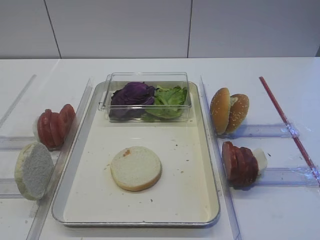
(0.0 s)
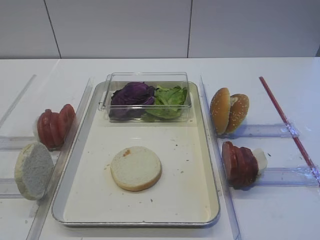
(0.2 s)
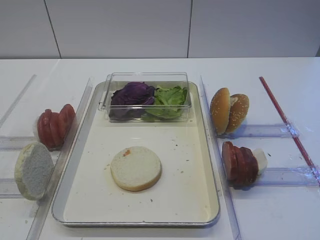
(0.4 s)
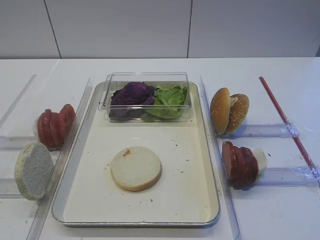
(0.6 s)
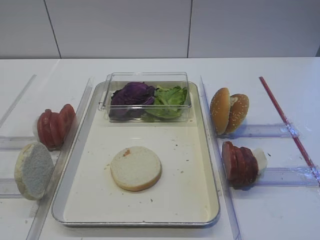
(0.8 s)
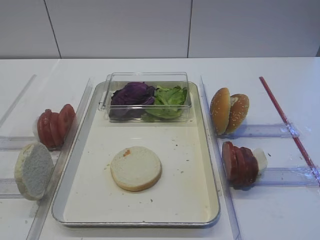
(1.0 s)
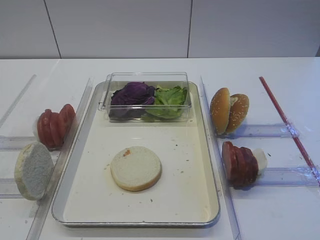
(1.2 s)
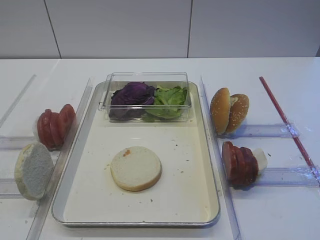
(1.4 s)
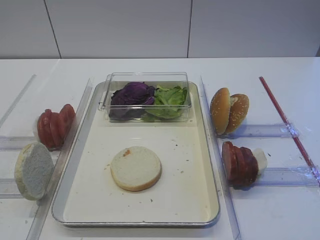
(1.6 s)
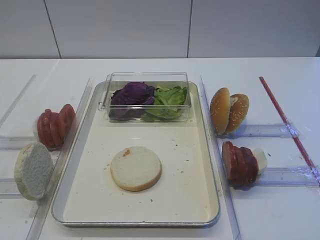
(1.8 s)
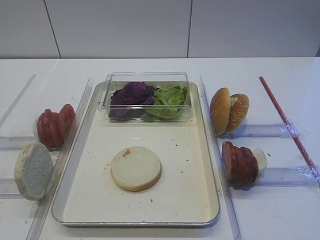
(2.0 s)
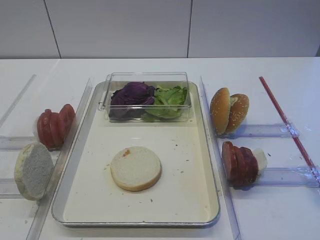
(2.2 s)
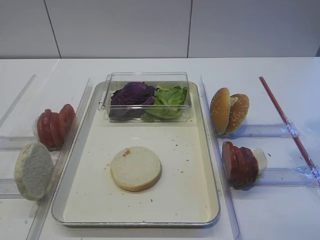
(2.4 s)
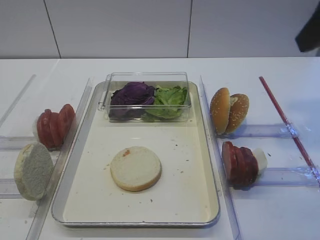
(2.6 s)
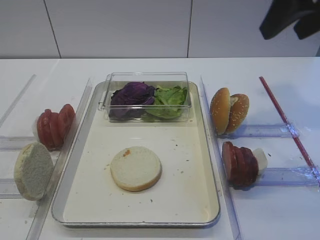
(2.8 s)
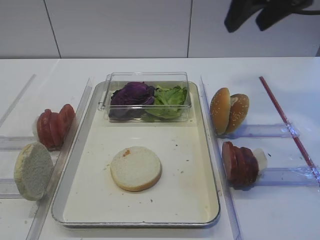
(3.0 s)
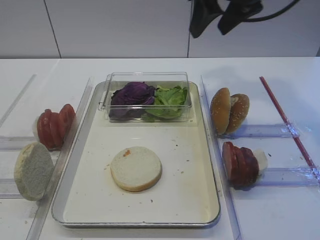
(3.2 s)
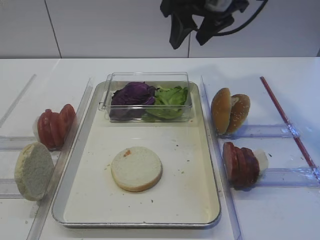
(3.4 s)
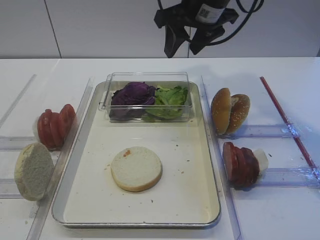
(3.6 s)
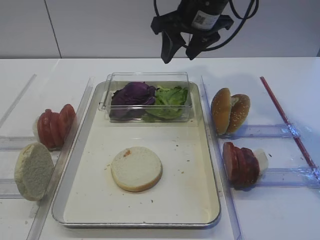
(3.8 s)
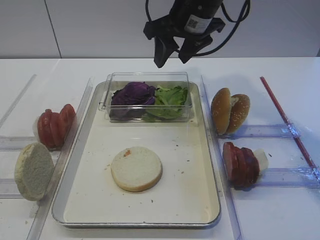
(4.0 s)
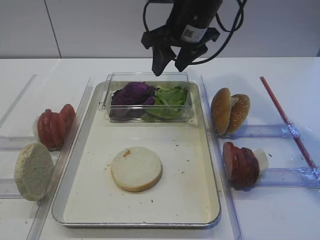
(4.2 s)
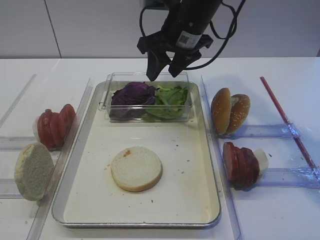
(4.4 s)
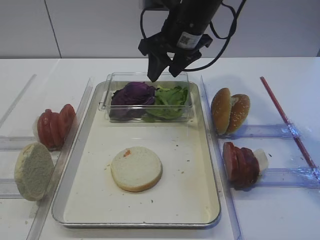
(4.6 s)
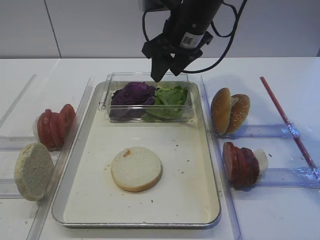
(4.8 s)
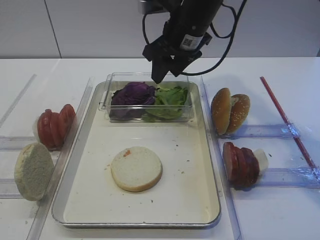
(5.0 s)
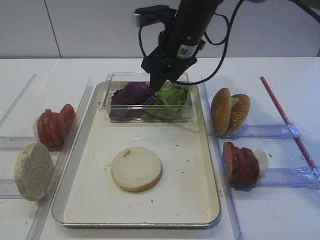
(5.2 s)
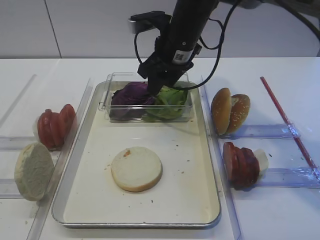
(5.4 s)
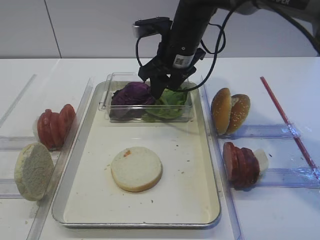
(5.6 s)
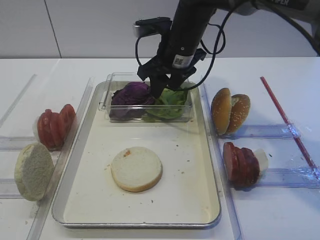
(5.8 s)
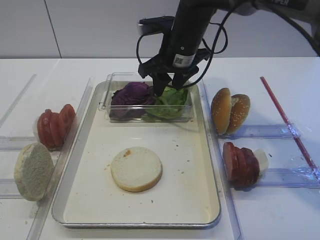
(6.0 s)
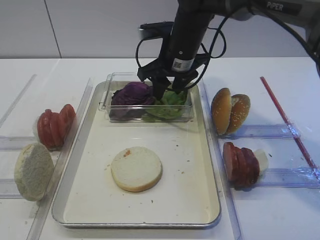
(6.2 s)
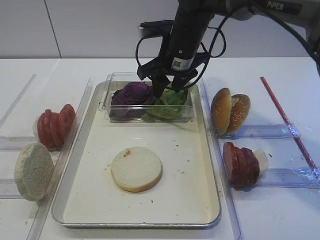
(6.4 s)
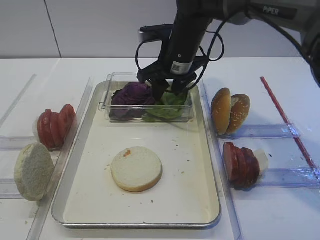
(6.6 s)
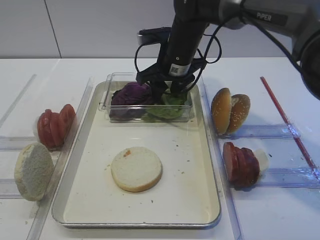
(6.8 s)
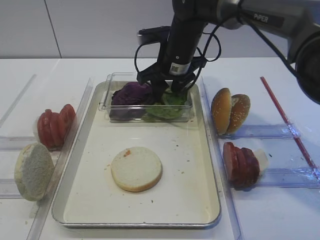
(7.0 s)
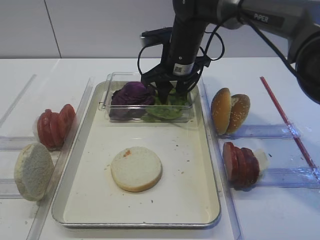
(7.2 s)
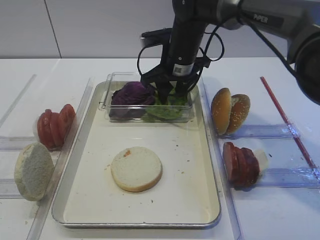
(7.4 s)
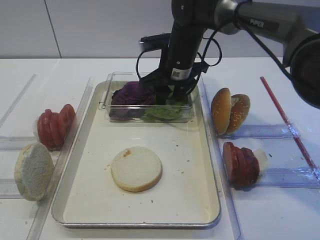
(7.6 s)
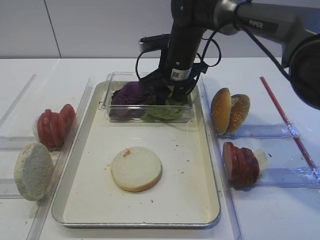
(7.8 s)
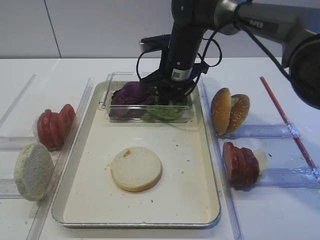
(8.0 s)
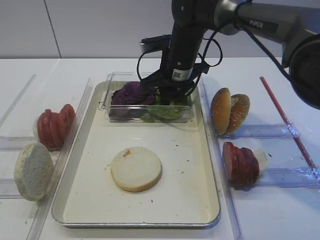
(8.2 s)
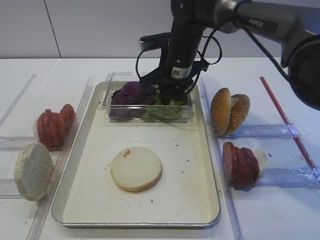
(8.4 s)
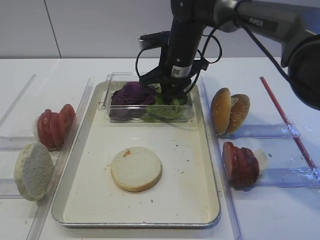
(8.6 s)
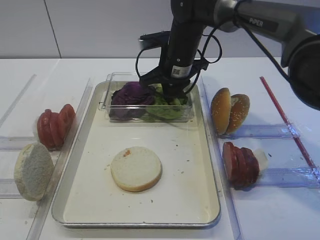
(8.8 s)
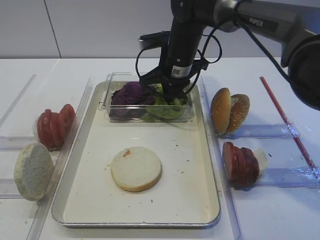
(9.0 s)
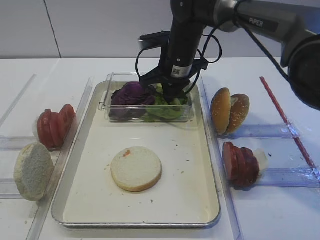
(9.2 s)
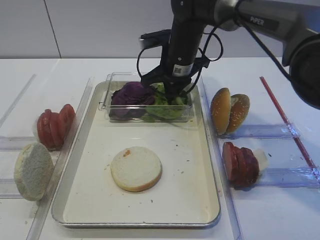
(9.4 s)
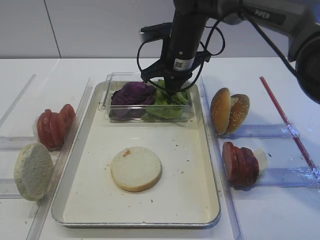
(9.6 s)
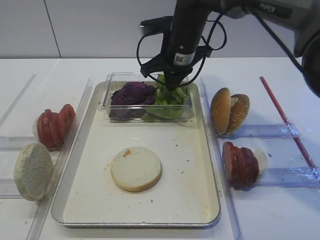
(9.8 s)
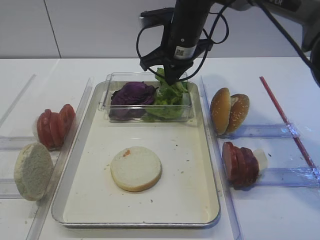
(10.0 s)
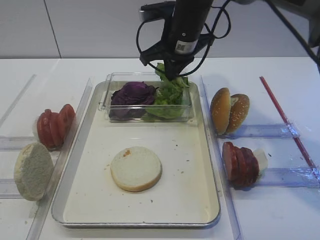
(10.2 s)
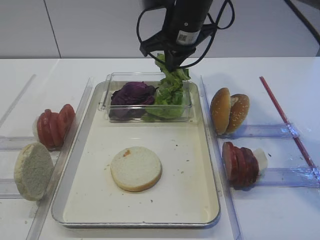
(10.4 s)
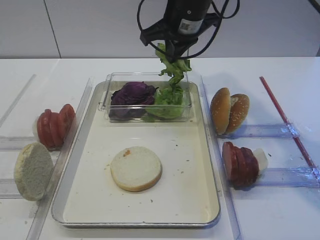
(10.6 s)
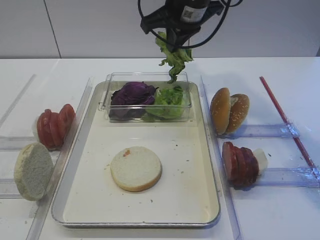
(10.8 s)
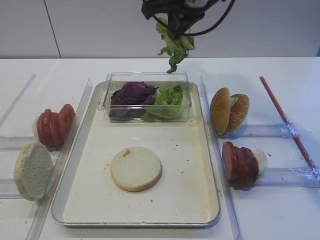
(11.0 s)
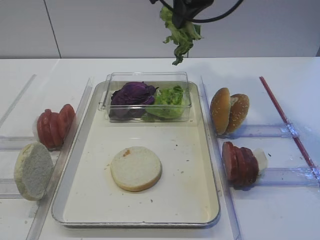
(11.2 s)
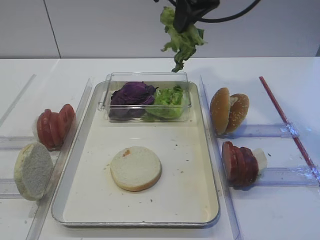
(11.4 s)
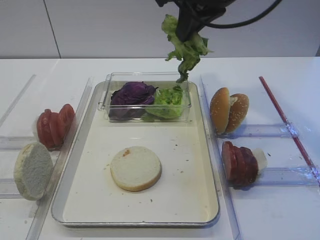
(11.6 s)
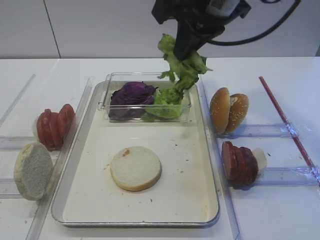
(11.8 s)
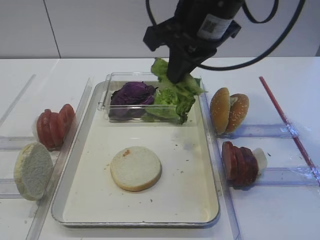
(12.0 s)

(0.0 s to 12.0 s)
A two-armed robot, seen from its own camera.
Step, 0.0 s - 10.2 s: Pick up the lettuce leaf with the right gripper.
1.6 s - 3.0 s: The right gripper shifts approximately 30 cm forward.
3.0 s - 4.4 s: The right gripper is displaced to the left, downward and forward by roughly 20 cm.
4.4 s - 6.0 s: The grippers move only a little.
6.0 s - 7.6 s: The grippers move only a little.
7.6 s - 9.0 s: The right gripper closes its fingers.
9.0 s - 10.4 s: The right gripper moves upward, about 10 cm.
10.4 s - 12.0 s: The right gripper shifts some 15 cm backward and upward.

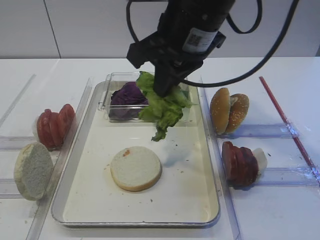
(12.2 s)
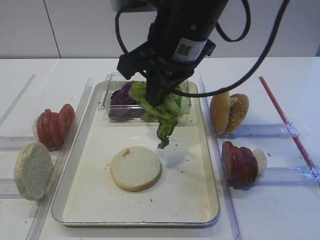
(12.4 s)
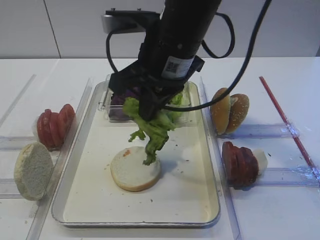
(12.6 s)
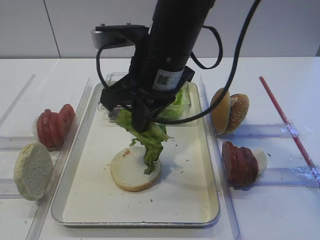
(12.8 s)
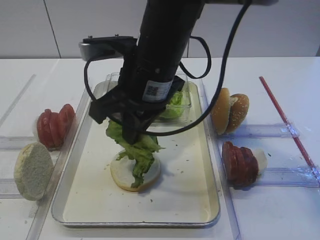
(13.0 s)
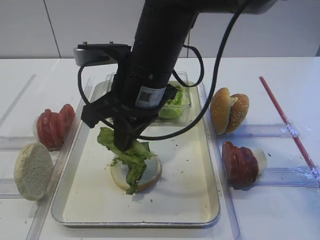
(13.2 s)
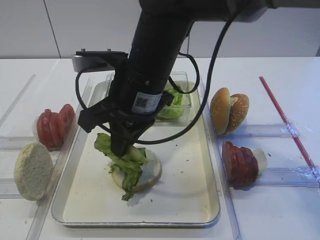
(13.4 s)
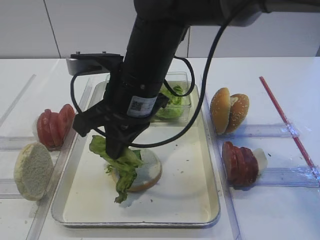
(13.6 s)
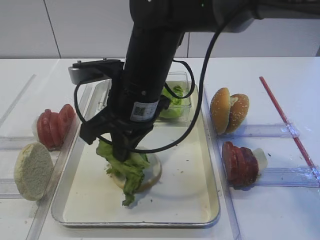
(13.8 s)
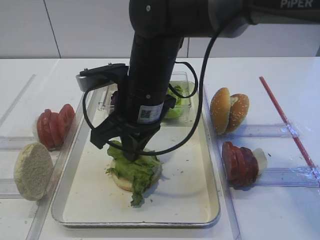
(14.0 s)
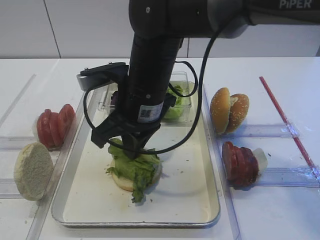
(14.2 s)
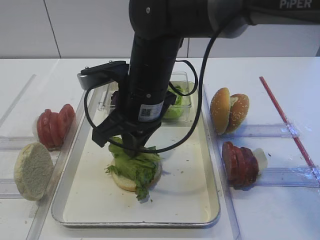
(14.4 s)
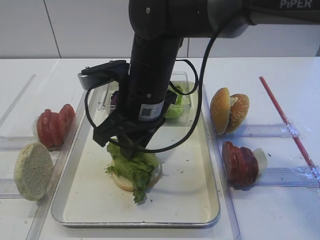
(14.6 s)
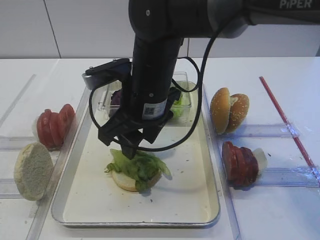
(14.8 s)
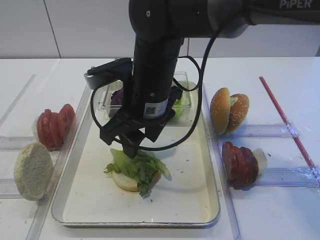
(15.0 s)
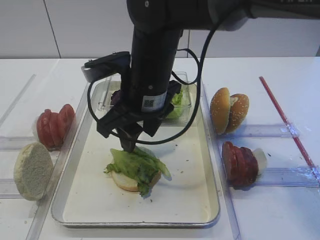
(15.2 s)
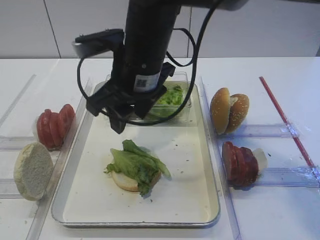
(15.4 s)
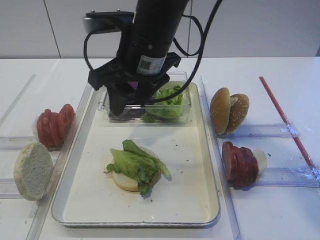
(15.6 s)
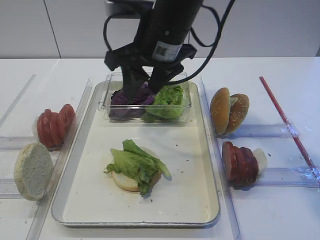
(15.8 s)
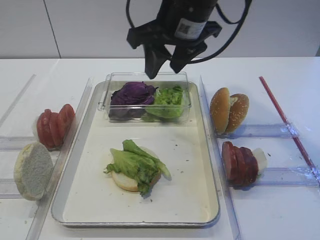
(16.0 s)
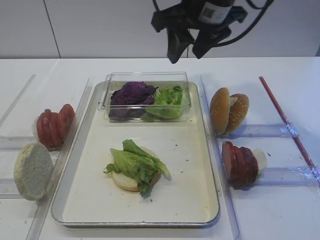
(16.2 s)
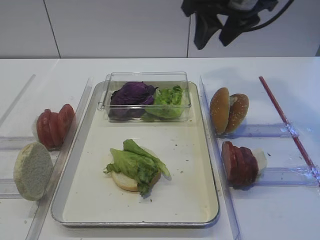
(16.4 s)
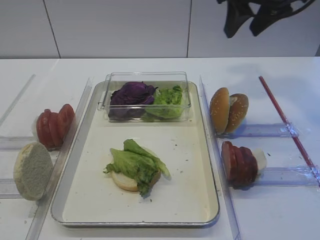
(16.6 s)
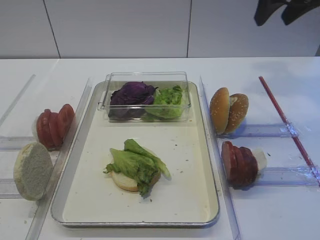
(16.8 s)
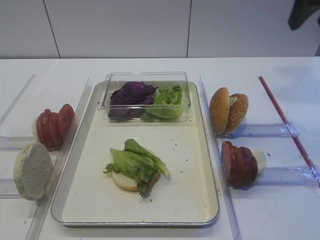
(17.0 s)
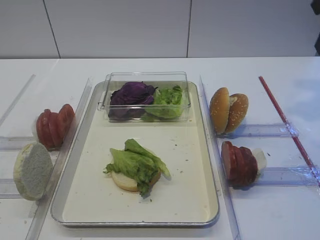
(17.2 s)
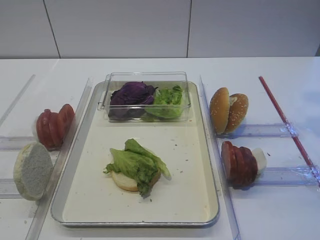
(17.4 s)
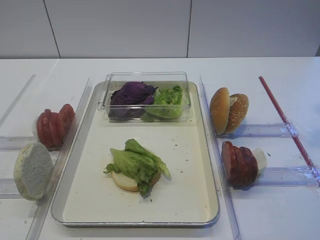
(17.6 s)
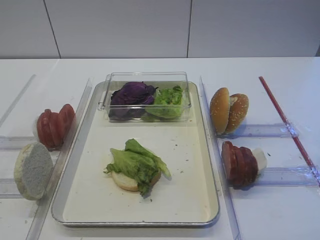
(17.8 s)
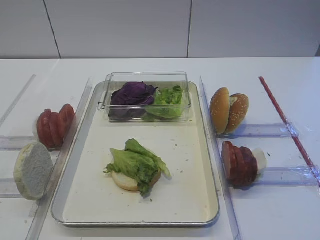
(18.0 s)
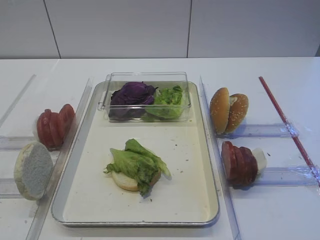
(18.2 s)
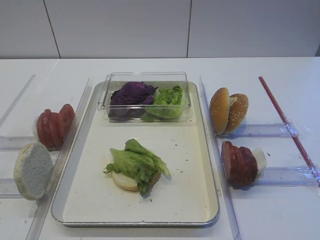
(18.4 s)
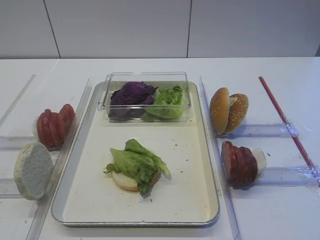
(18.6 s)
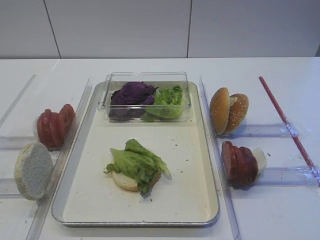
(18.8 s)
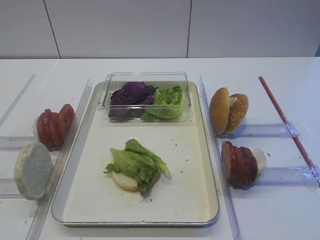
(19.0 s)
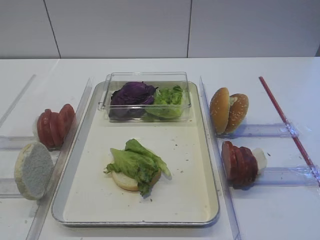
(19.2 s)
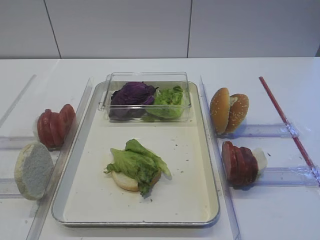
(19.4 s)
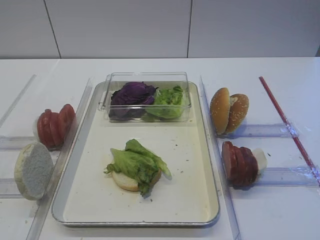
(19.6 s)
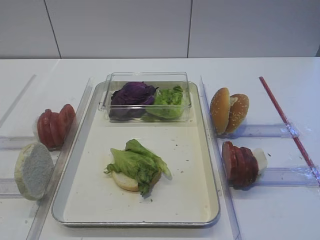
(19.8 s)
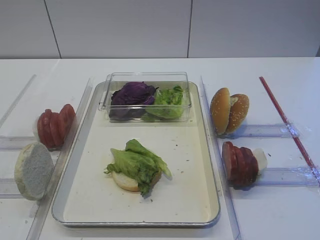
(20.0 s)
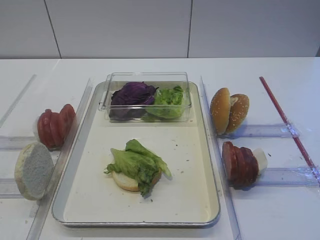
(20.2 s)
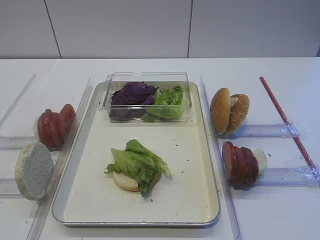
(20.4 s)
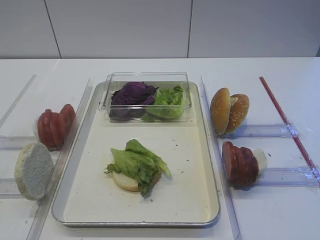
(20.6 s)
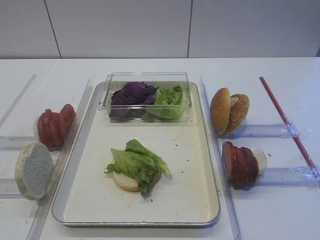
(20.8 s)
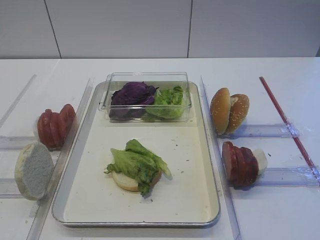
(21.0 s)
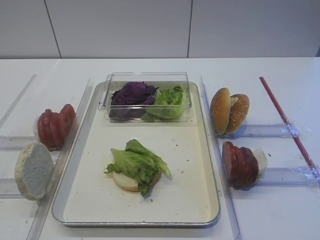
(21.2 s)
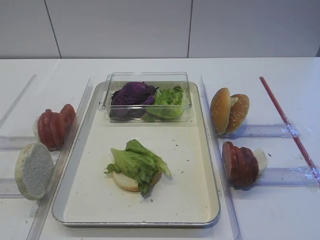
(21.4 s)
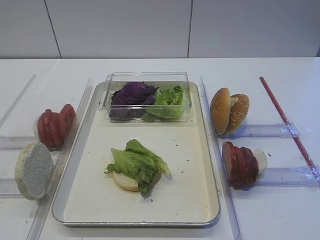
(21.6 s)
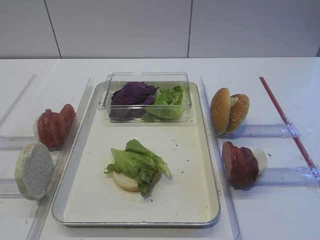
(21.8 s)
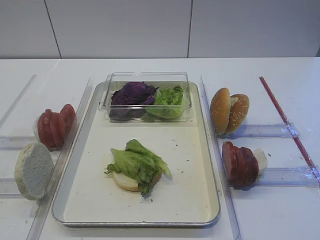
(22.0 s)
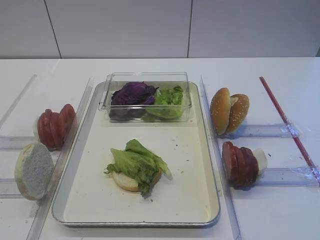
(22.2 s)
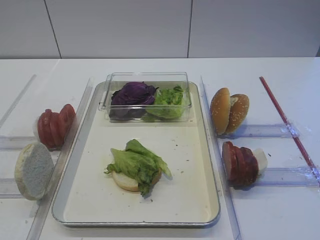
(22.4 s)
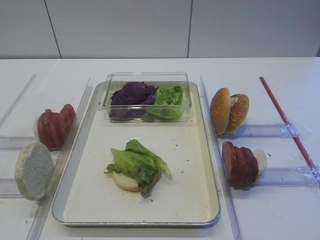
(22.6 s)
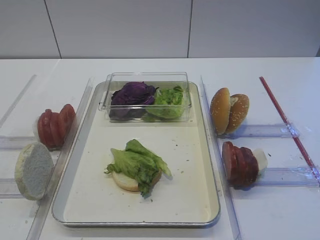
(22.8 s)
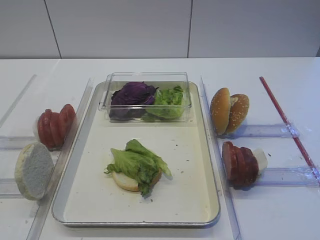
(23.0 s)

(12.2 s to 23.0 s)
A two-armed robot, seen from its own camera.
Step, 12.2 s - 15.2 s: Place the lettuce leaf on the bread slice with the right gripper.
12.2 s - 13.8 s: The right gripper heads downward and to the left, covering some 10 cm.
13.8 s - 15.2 s: The right gripper opens.
15.2 s - 16.8 s: The right gripper travels to the right and upward by some 25 cm.
16.8 s - 18.4 s: The right gripper shifts some 35 cm backward.
20.0 s - 23.0 s: Both grippers stay put.
